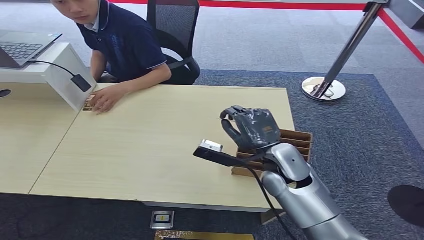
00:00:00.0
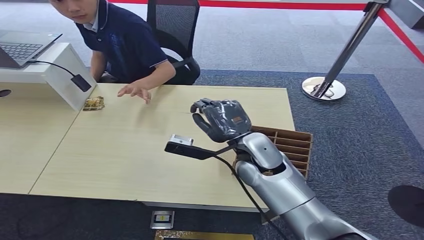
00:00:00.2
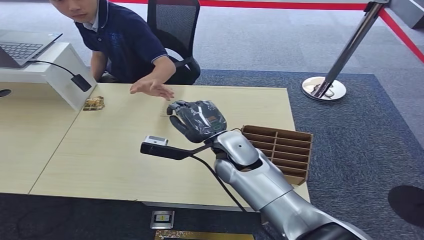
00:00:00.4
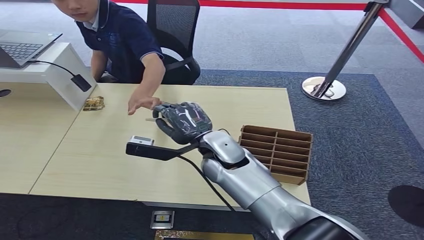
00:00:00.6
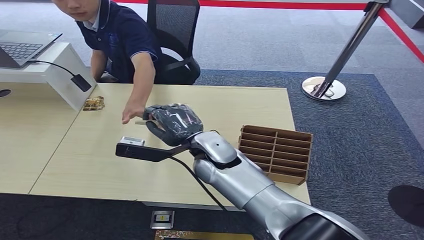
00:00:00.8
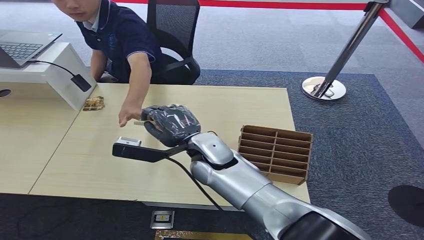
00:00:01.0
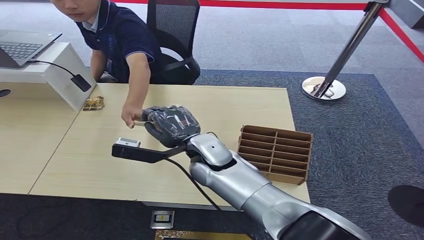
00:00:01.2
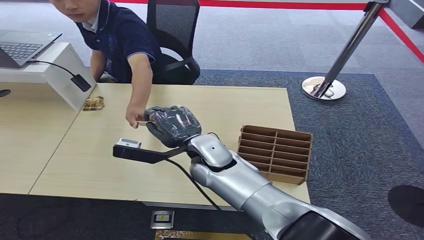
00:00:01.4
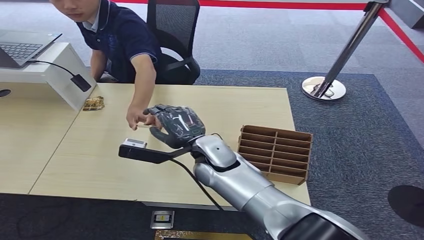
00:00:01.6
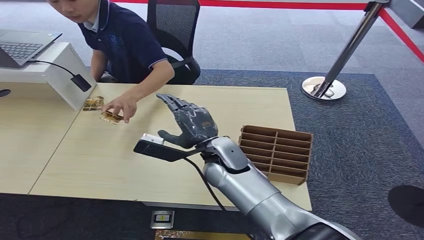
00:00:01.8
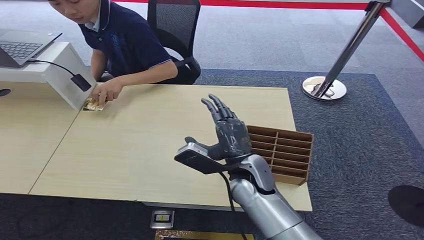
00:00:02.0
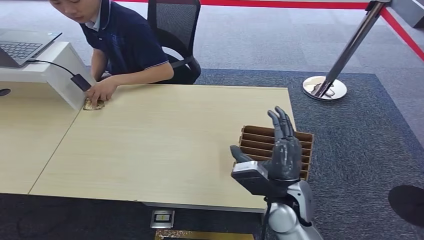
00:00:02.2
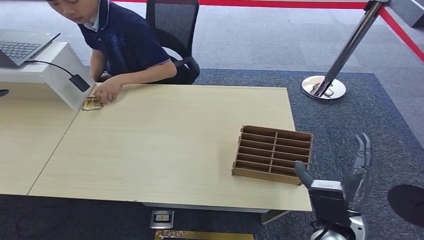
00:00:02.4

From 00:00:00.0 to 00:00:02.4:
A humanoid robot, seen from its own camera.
Step, from 00:00:00.2 to 00:00:02.4: Hand the key card to the target.
From 00:00:00.0 to 00:00:01.2: The right hand shifts roughly 15 cm to the left.
From 00:00:01.2 to 00:00:02.4: The right hand moves to the right and backward, approximately 25 cm.

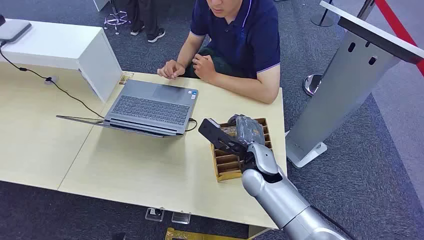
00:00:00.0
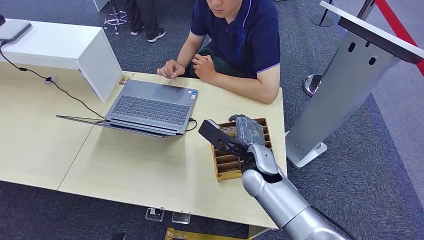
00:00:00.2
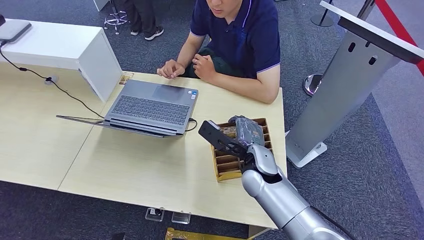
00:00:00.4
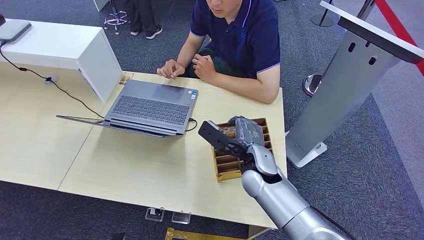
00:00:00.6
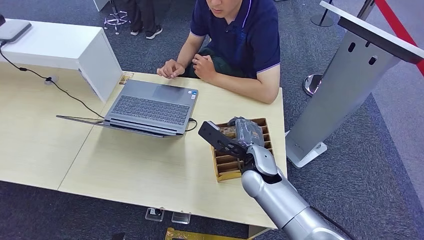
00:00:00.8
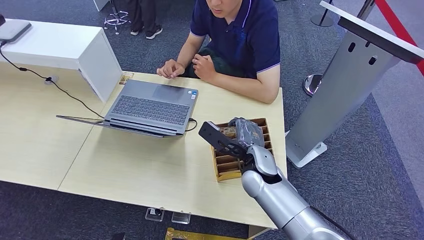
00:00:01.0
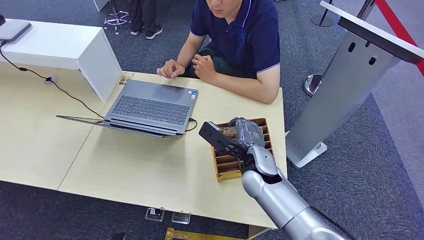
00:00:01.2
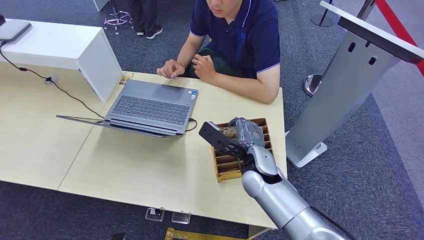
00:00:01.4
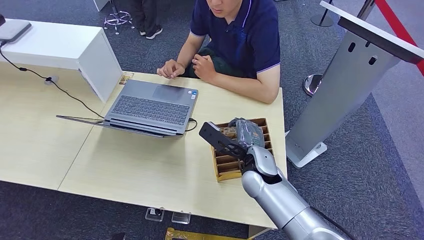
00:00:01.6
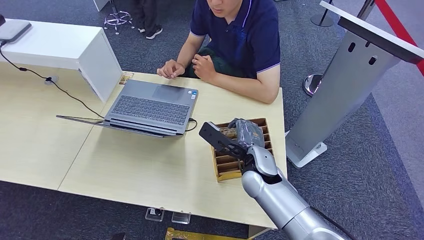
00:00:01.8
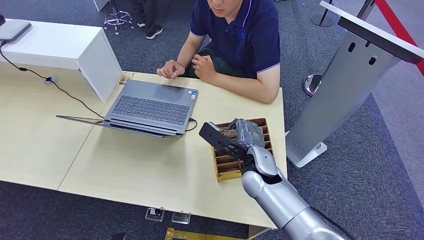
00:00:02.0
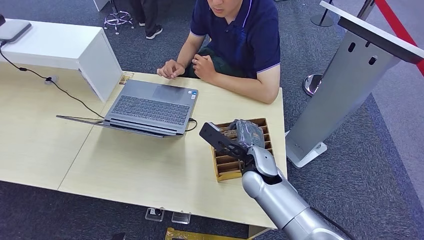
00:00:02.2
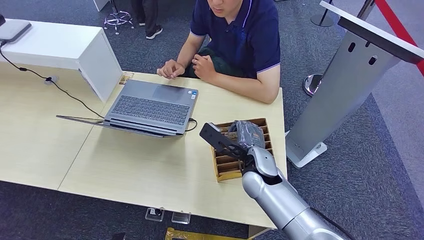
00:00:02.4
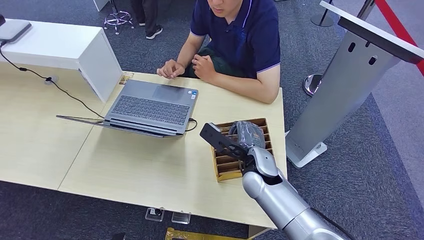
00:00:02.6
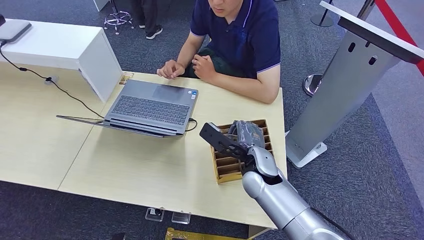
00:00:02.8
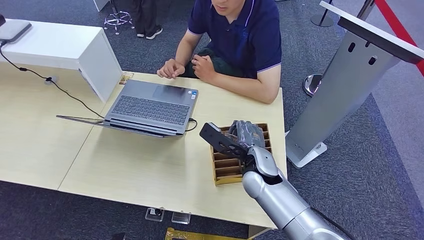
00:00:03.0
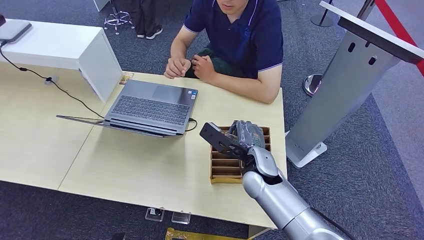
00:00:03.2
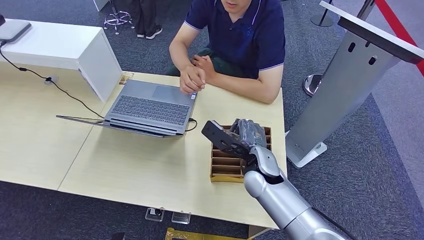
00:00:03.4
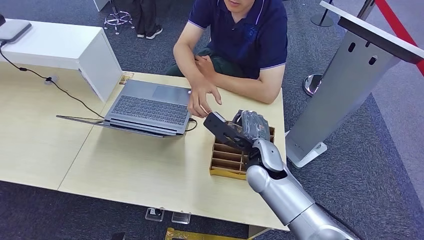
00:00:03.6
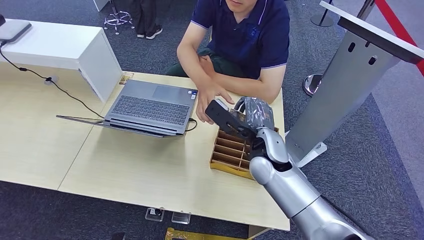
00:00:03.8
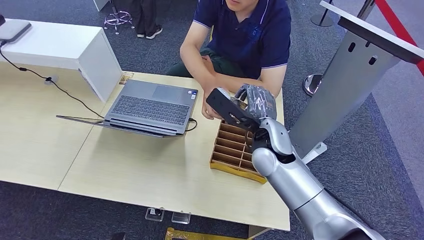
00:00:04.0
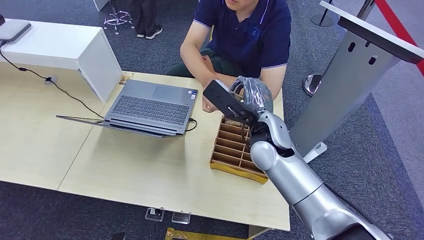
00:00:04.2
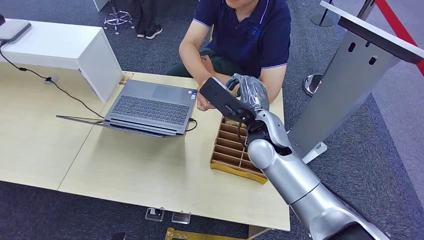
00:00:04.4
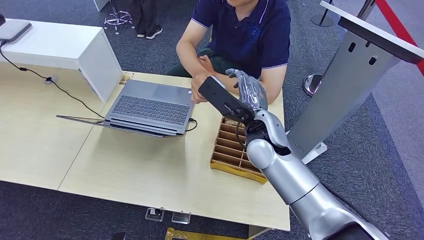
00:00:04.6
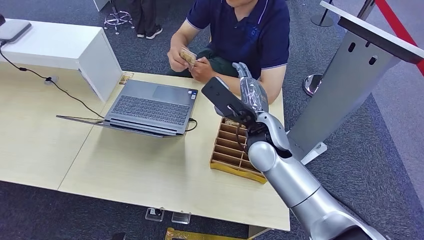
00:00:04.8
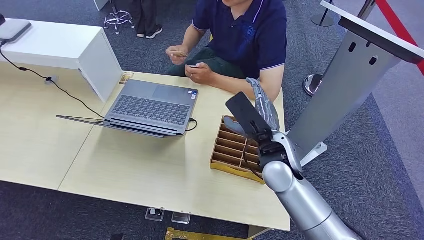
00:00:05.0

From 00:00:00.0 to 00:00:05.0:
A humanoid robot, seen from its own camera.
Step, from 00:00:00.0 to 00:00:03.6: Pick up the key card from the card box.
Step, from 00:00:04.0 to 00:00:05.0: Hand the key card to the target.
From 00:00:01.6 to 00:00:03.4: Neither hand changes place.
From 00:00:03.4 to 00:00:05.0: The right hand shifts some 5 cm upward.
